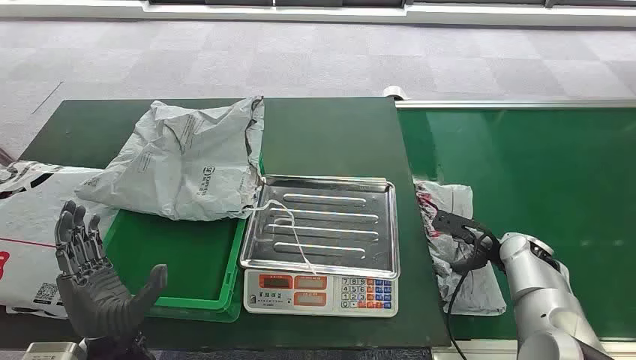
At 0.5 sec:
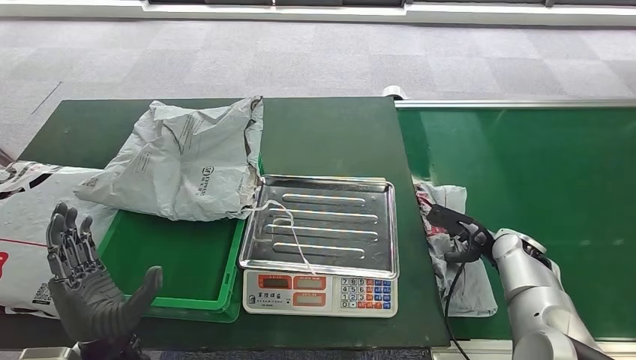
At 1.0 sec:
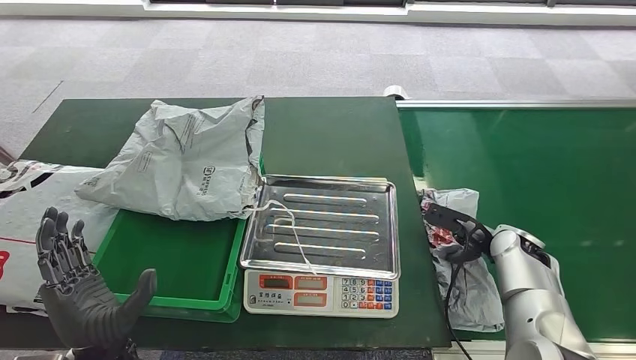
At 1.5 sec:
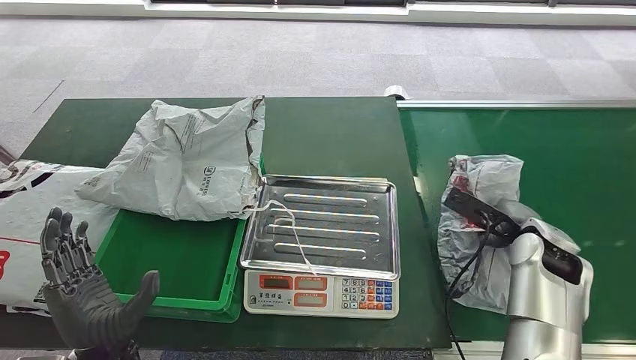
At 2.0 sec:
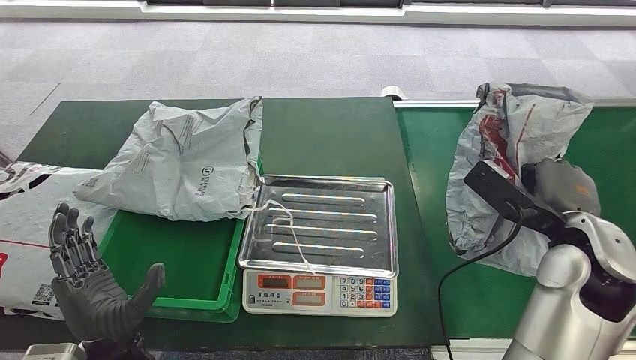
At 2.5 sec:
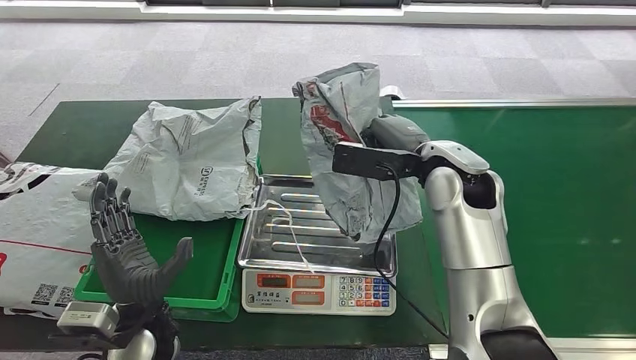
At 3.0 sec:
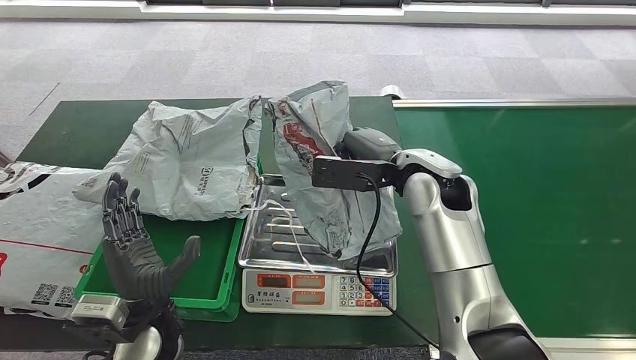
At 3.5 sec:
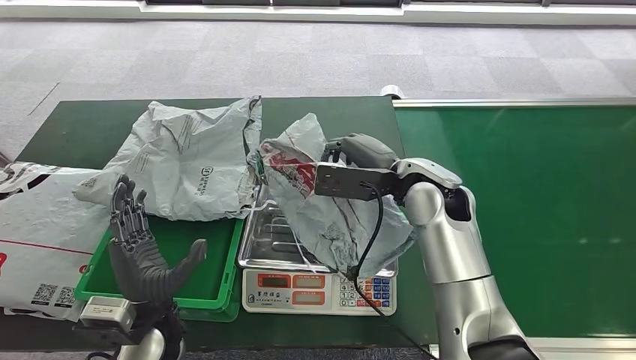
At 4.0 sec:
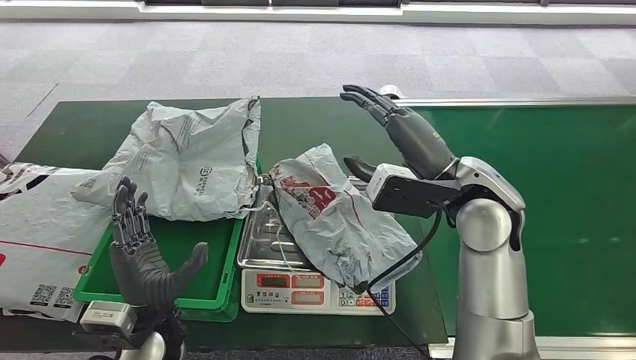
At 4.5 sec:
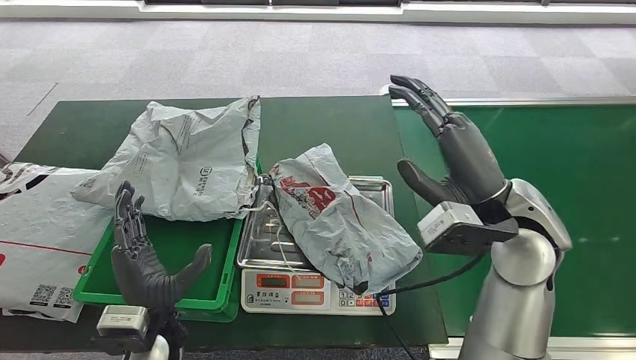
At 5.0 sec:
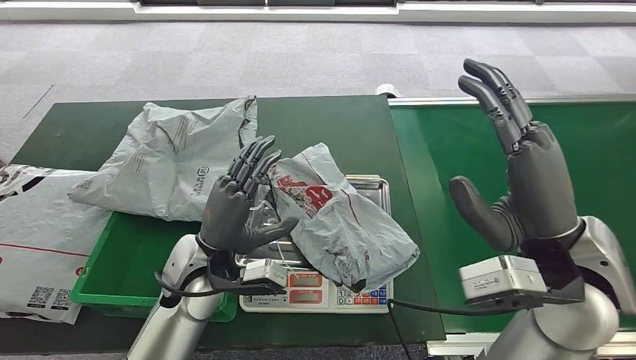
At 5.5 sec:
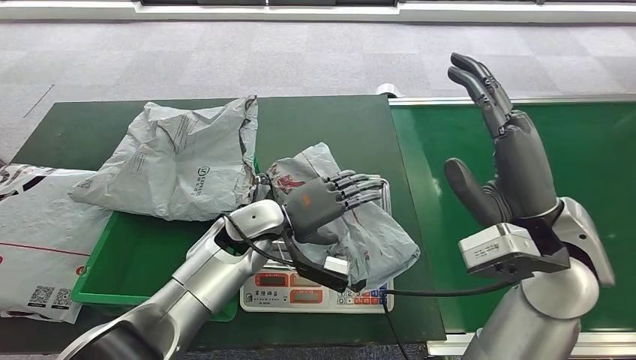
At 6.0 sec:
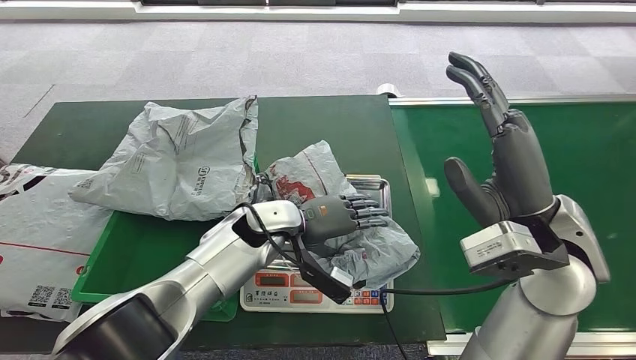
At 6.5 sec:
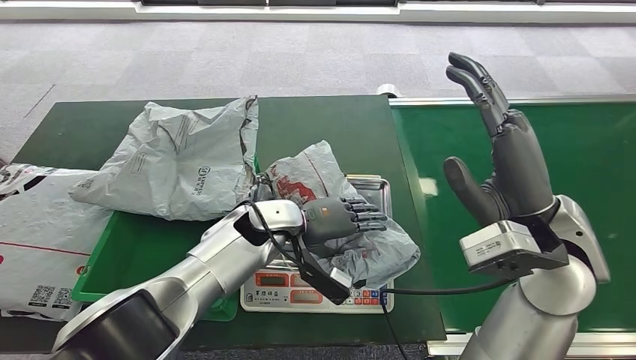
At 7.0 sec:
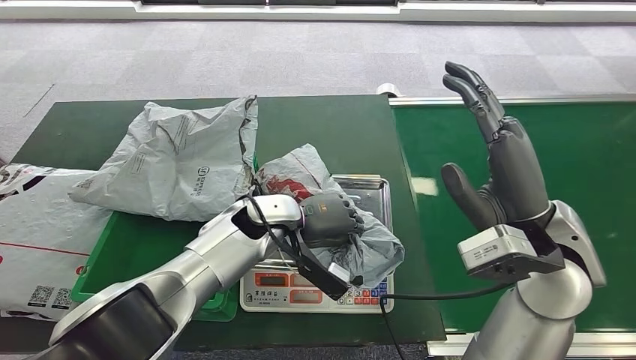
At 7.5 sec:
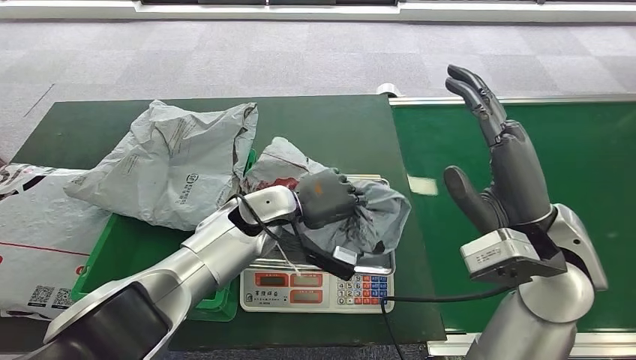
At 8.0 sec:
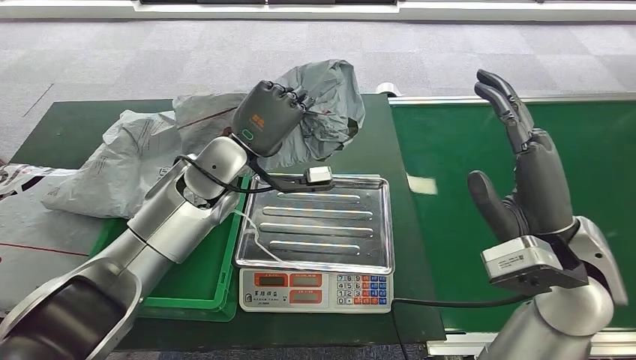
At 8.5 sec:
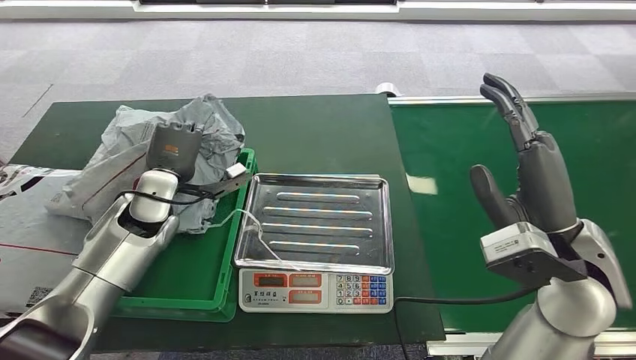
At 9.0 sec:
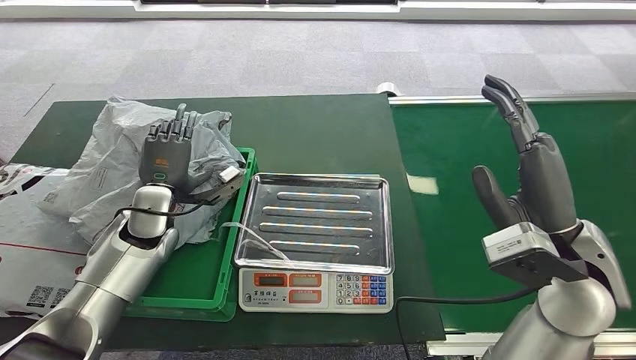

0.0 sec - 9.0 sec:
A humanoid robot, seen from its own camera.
Step, 0.0 sec - 2.5 sec: Pick up the package from the conveyor belt.
Step, 3.0 sec - 5.0 sec: Place the package onto the inbound machine.
Step, 5.5 sec - 8.0 sec: Pick up the package from the inbound machine.
Step, 8.5 sec - 9.0 sec: Place the package into the parcel locker.
